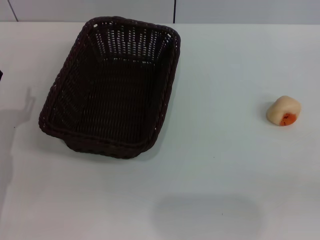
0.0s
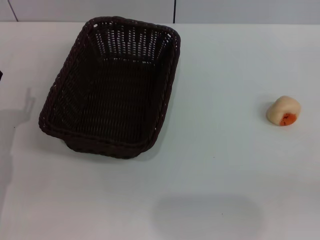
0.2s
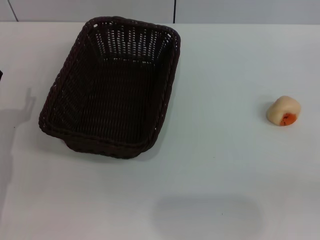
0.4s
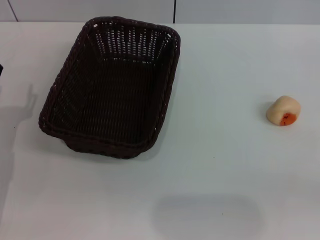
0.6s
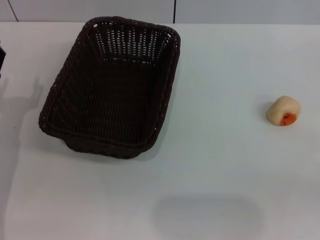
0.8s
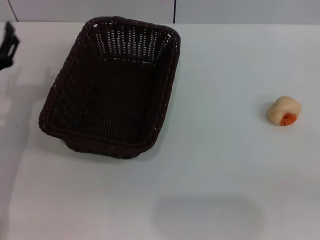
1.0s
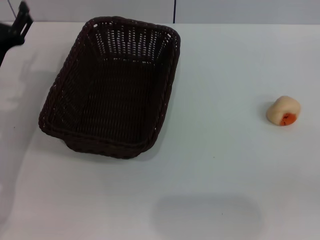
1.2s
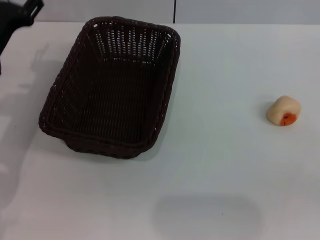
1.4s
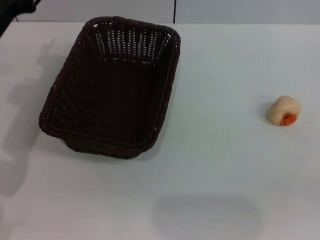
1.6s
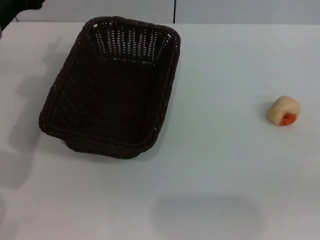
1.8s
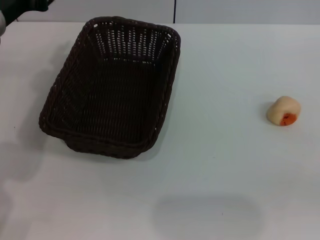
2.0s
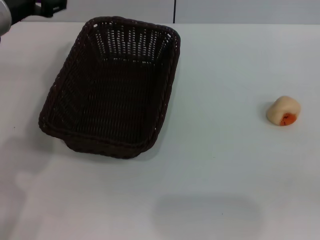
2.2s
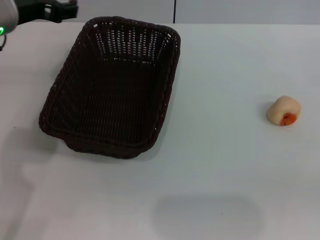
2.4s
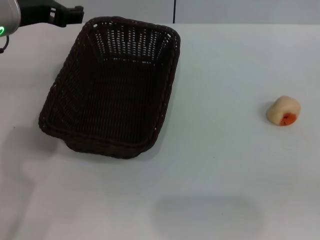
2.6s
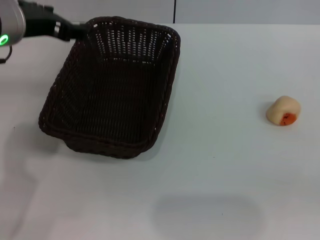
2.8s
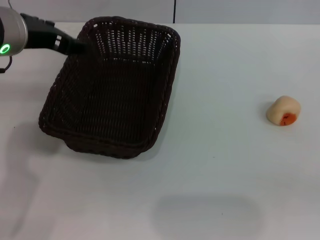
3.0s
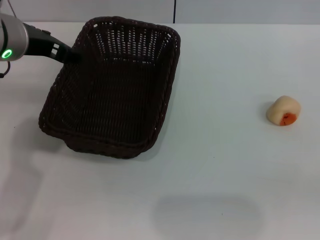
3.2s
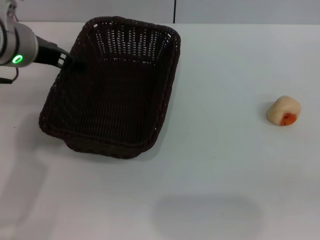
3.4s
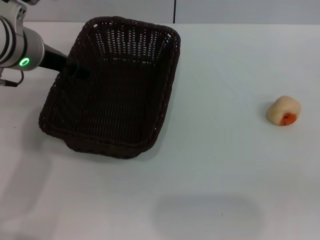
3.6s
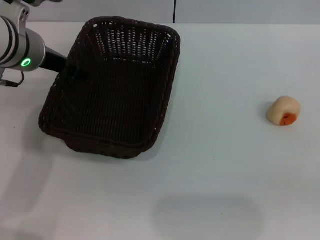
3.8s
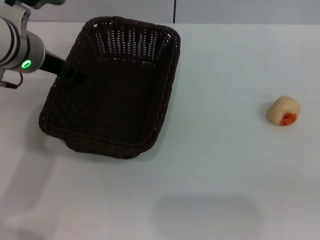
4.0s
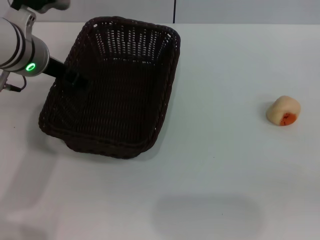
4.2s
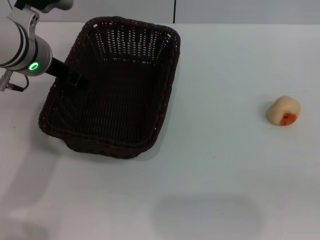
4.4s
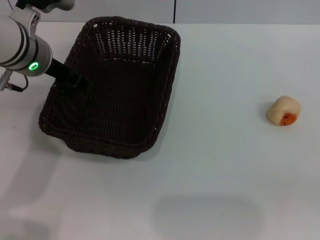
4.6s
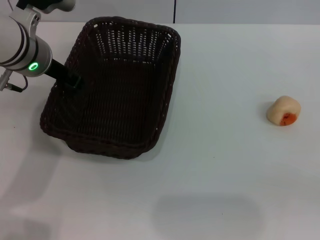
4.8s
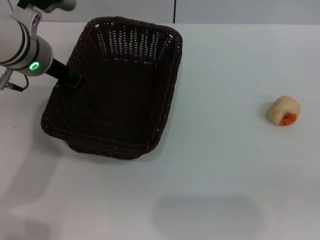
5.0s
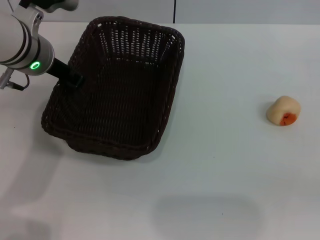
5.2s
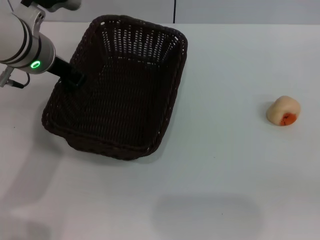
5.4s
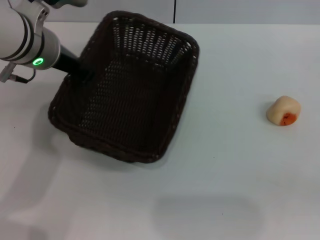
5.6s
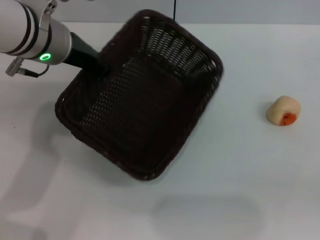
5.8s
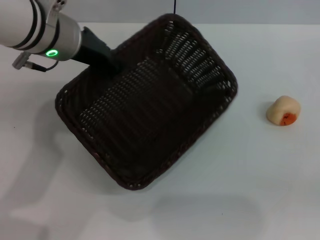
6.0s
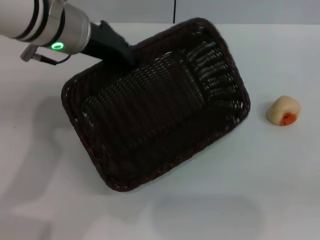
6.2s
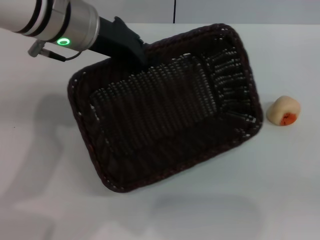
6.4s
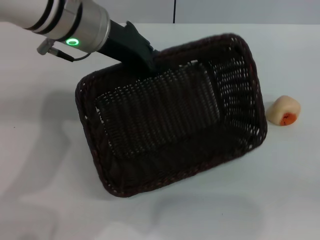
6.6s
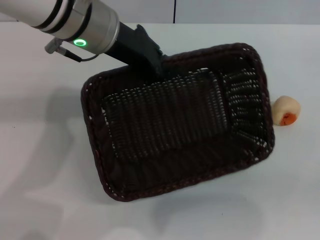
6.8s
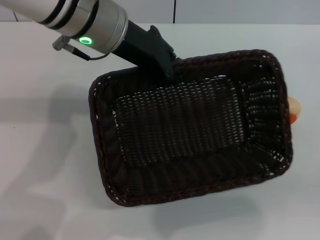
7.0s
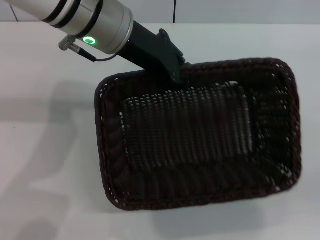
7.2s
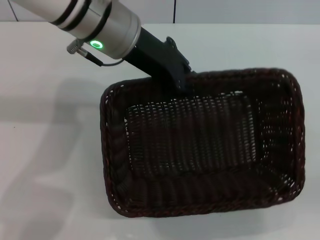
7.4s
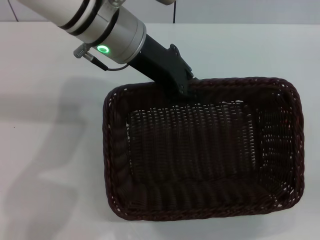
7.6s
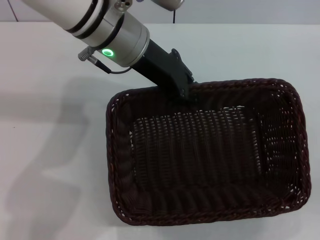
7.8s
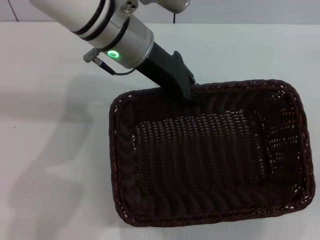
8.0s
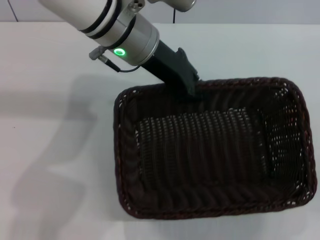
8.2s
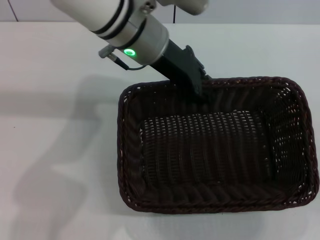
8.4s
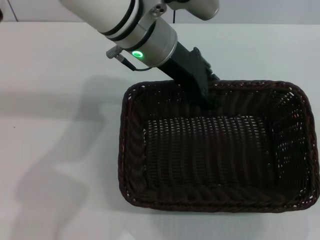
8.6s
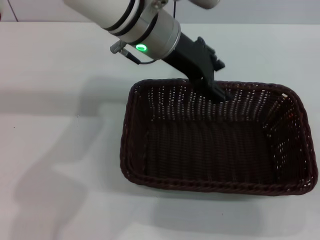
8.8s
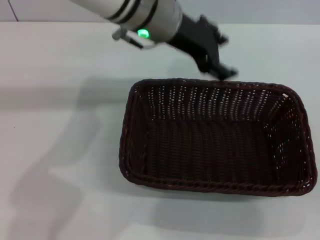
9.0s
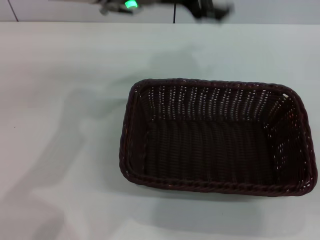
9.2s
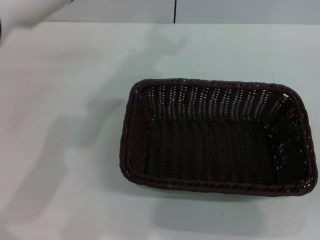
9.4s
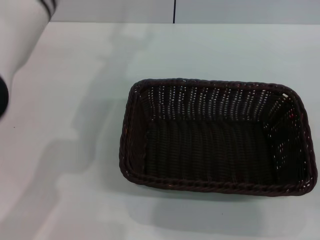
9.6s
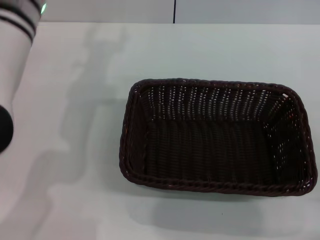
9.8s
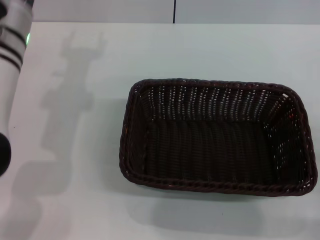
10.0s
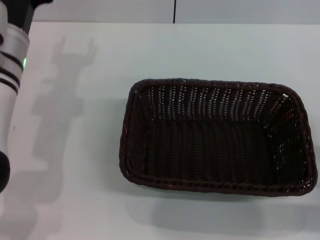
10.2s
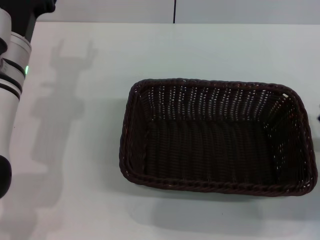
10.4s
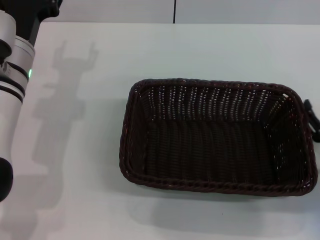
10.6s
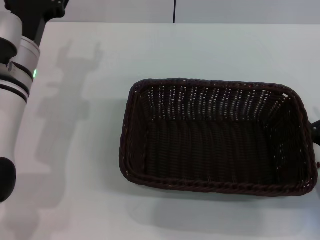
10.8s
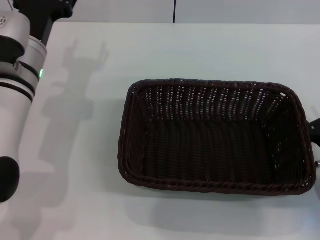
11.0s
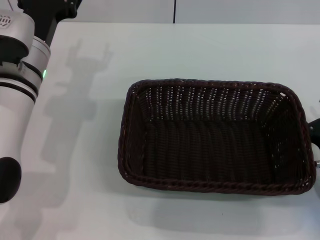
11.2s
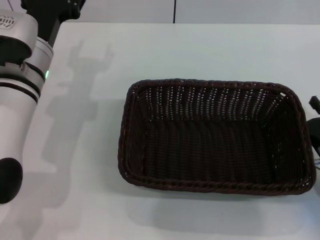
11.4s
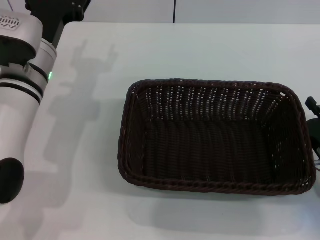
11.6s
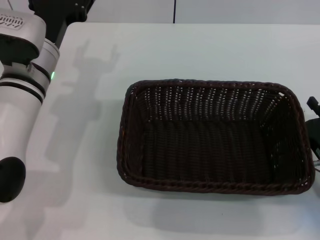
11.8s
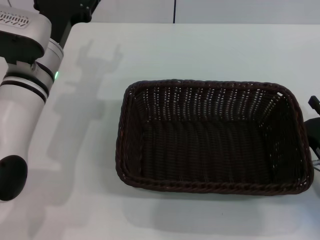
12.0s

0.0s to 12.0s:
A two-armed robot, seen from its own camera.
Step, 0.0s to 9.0s: Move the basket to the center of view with the left gripper.
0.0s to 1.6s: The left gripper is displaced upward and forward by roughly 15 cm.
1.6s to 3.0s: The left gripper goes approximately 10 cm upward and to the right.
3.0s to 4.4s: The left gripper shifts by approximately 5 cm.
4.4s to 6.0s: The left gripper ends up about 5 cm from where it was, and closes its fingers.
6.0s to 7.6s: The left gripper is displaced to the right by roughly 5 cm.
7.6s to 9.0s: The left gripper opens its fingers.
9.0s to 10.4s: The left gripper heads to the left and downward, covering some 20 cm. Meanwhile the right gripper goes about 10 cm forward.
10.4s to 12.0s: There are only small adjustments of the grippers.

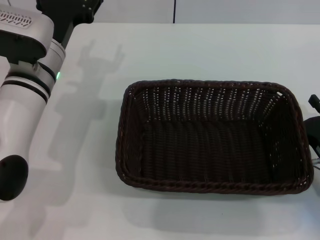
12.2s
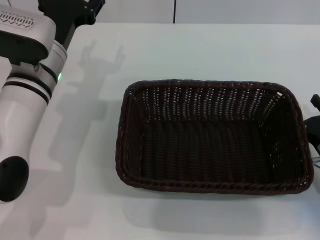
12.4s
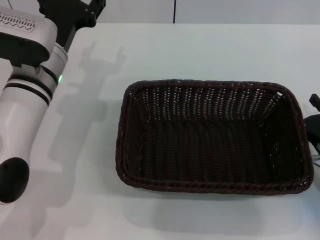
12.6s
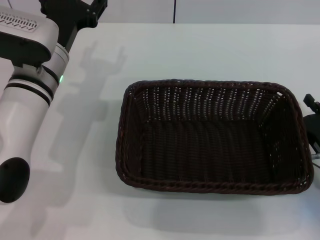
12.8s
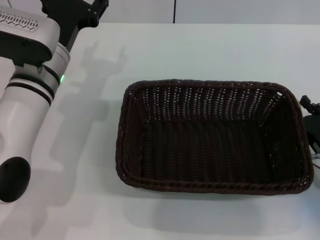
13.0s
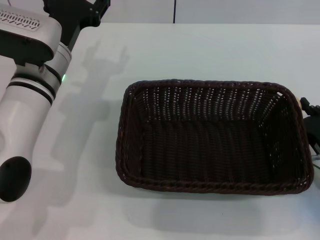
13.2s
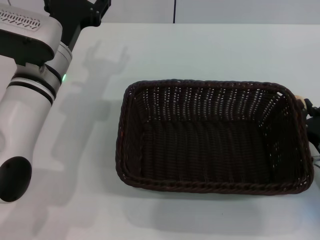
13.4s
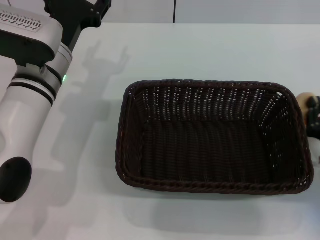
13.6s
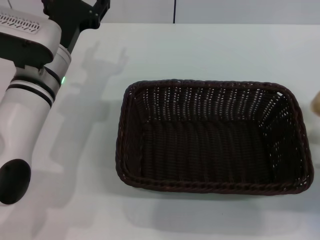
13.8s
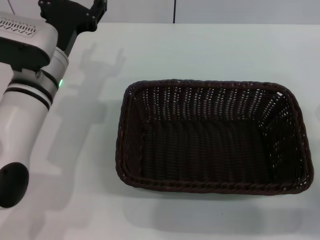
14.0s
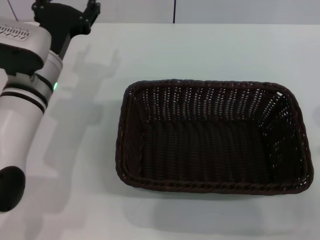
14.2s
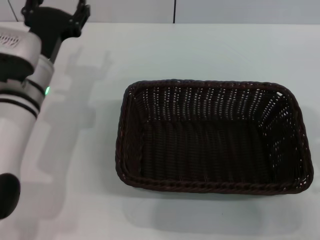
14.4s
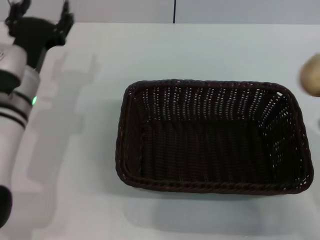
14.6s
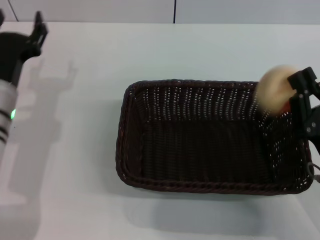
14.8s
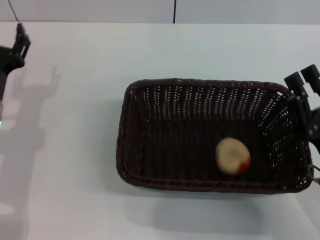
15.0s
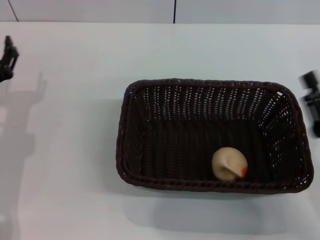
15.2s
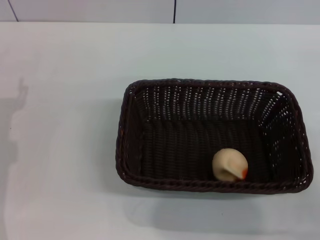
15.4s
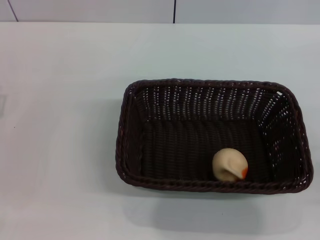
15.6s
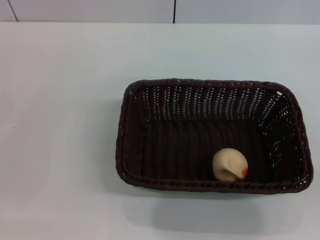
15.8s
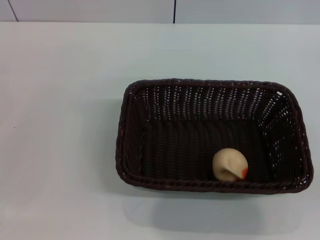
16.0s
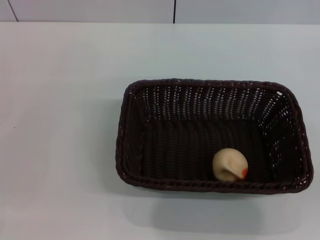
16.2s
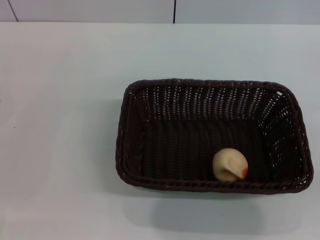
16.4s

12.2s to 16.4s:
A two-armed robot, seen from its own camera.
Step, 14.0s to 15.6s: Place the egg yolk pastry into the basket with the right gripper.
12.2s to 13.6s: The right gripper closes.
13.6s to 15.0s: The left gripper goes approximately 10 cm to the left, downward and backward, while the right gripper is displaced upward and to the left by roughly 10 cm.
15.0s to 16.4s: The right gripper heads to the right, covering about 15 cm, and opens up, while the left gripper moves to the left and backward, some 10 cm.
